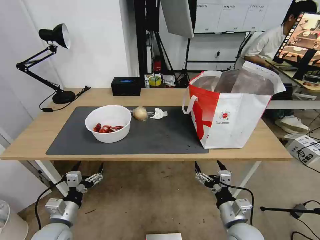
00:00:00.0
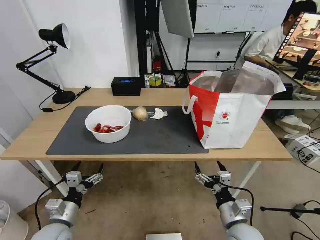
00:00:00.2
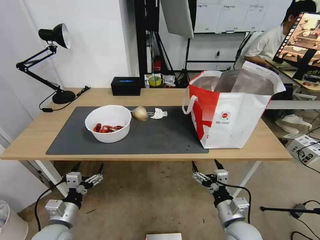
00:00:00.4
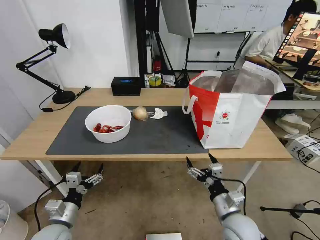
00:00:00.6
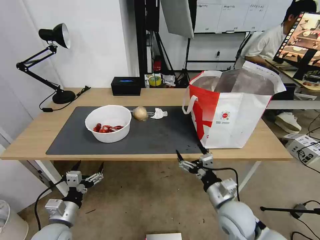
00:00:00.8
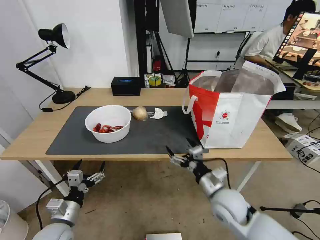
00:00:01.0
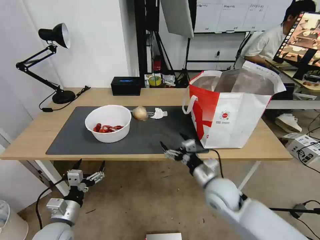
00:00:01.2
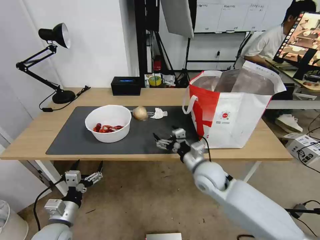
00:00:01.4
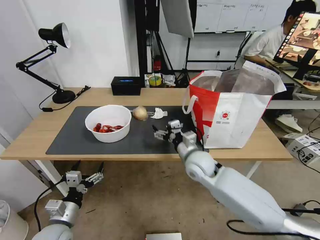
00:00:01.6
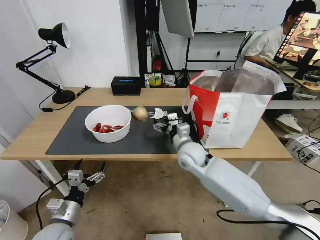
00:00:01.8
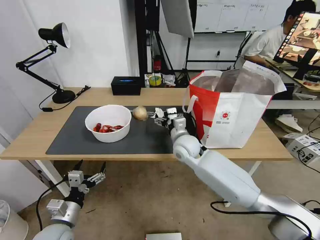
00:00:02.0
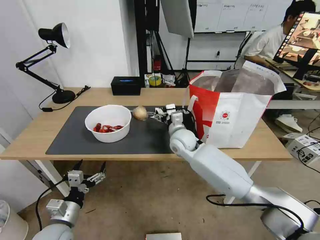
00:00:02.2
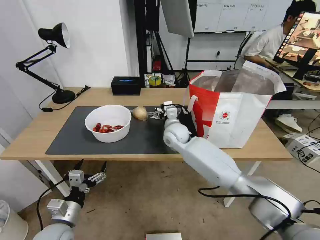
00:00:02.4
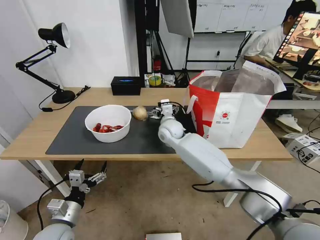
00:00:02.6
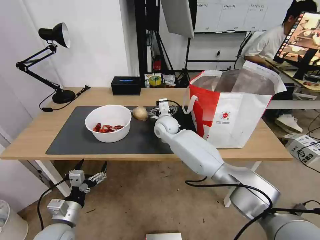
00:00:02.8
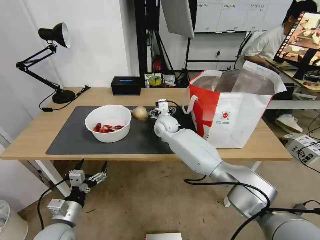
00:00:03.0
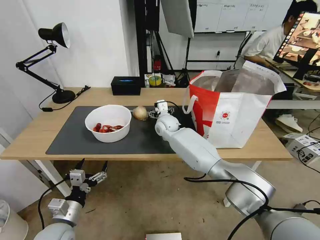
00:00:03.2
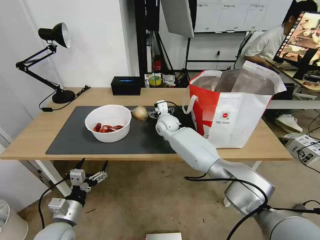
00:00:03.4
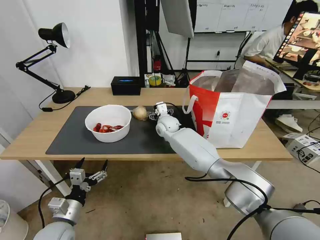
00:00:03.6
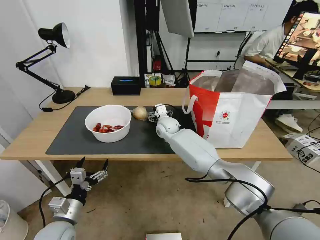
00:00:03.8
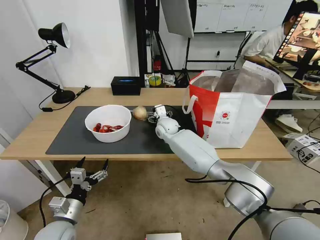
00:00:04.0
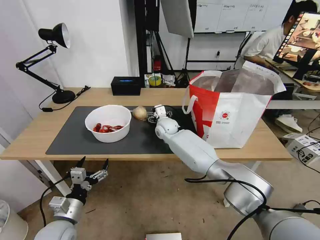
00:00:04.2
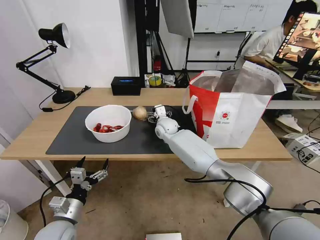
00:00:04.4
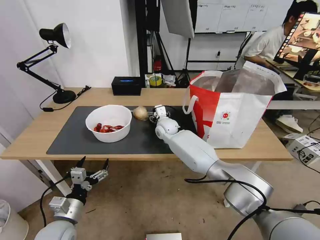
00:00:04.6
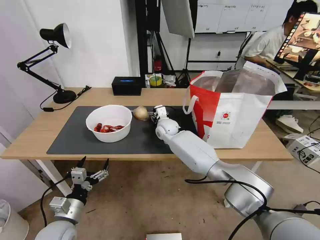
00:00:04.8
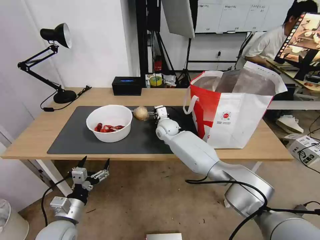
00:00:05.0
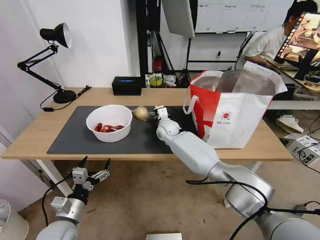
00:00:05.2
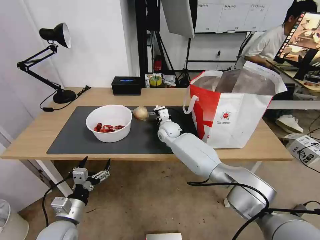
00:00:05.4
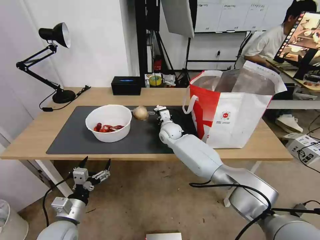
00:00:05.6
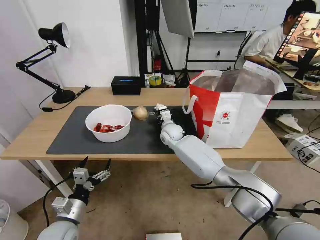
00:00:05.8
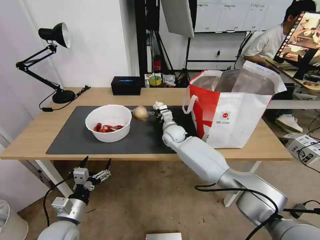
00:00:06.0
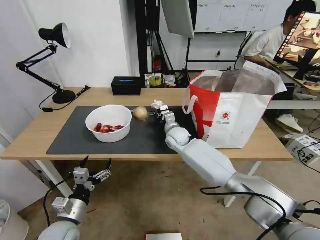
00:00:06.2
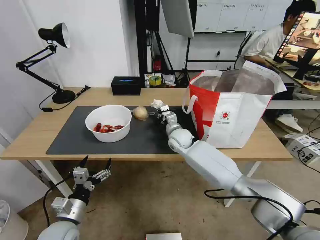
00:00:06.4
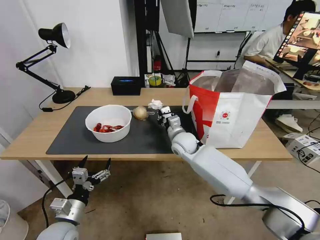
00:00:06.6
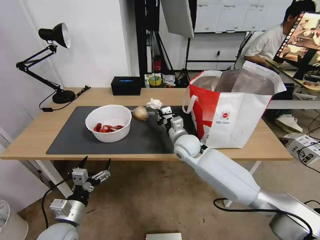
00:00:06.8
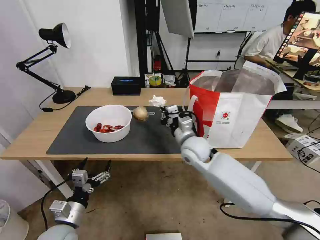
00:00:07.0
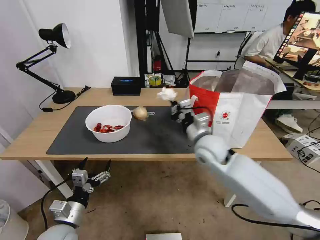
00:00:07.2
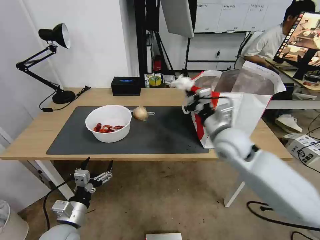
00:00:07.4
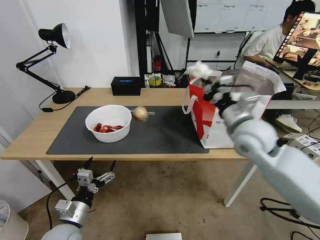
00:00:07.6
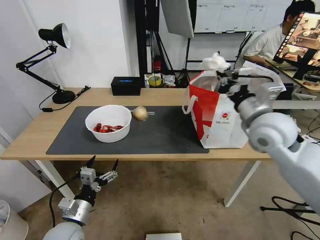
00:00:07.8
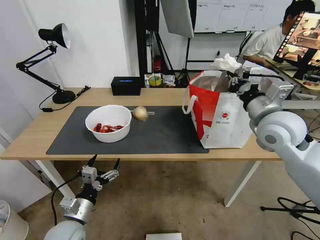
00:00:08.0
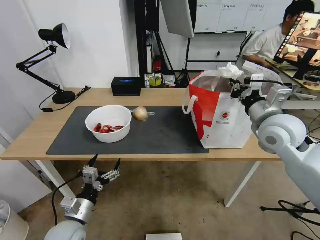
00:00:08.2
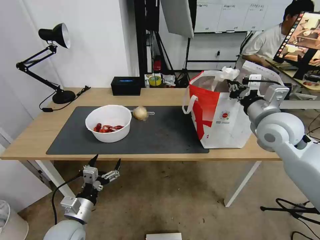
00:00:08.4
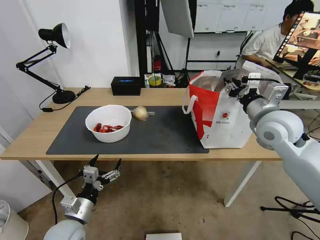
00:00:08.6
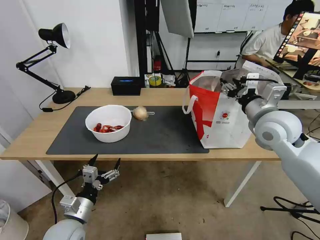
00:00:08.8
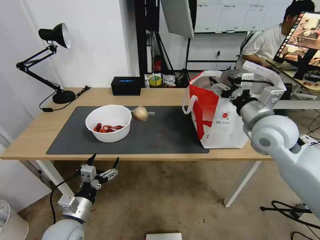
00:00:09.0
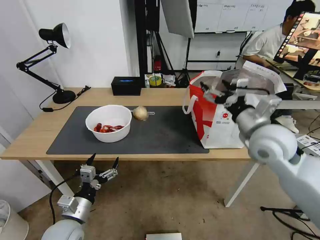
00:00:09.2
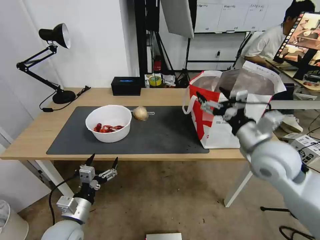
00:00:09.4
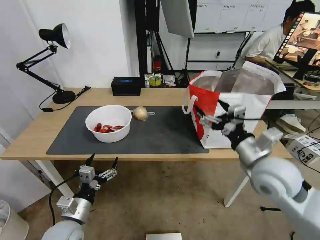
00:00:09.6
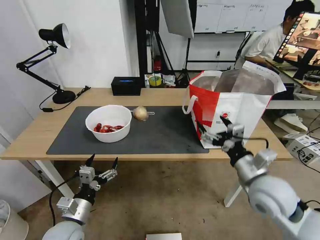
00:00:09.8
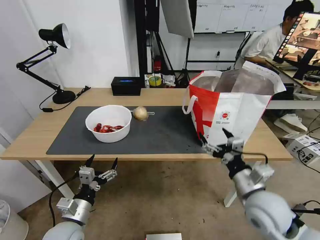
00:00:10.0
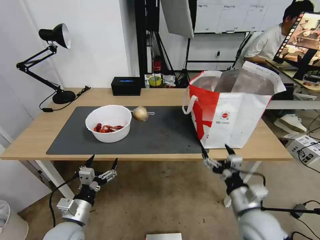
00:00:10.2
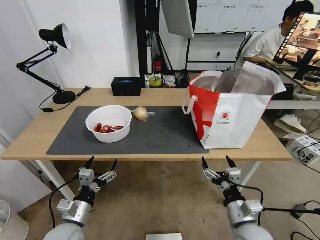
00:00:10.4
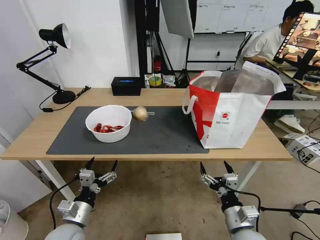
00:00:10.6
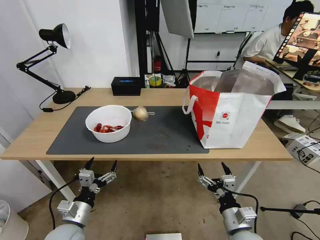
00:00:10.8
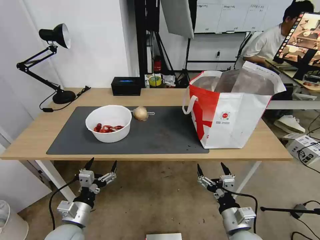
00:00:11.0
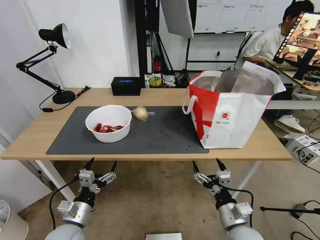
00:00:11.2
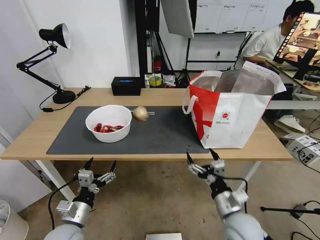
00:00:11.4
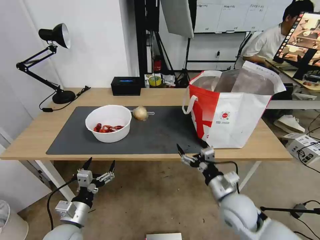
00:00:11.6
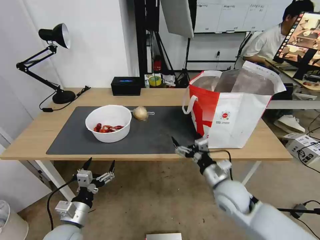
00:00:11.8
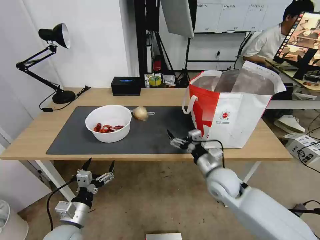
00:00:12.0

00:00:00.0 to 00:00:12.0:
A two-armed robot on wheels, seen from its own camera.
Task of the whole recording: Pick up the trash from the table and place it into the takeout bag.
00:00:00.0 to 00:00:01.6: The right gripper shifts some 20 cm forward and to the left.
00:00:01.6 to 00:00:03.0: The right gripper goes roughly 20 cm forward and to the left.
00:00:03.0 to 00:00:04.4: The grippers make only small movements.
00:00:04.4 to 00:00:06.0: The right gripper closes.
00:00:06.0 to 00:00:07.6: The right gripper is displaced upward, to the right and backward by approximately 30 cm.
00:00:07.6 to 00:00:09.0: The right gripper shifts about 5 cm to the right, and opens up.
00:00:09.0 to 00:00:10.4: The right gripper moves downward and backward, some 30 cm.
00:00:10.4 to 00:00:12.0: The right gripper goes about 15 cm forward.

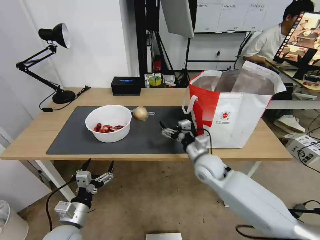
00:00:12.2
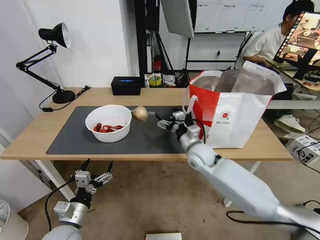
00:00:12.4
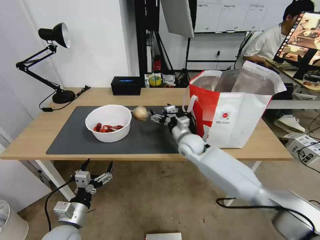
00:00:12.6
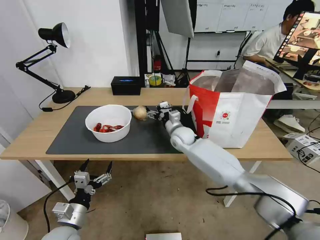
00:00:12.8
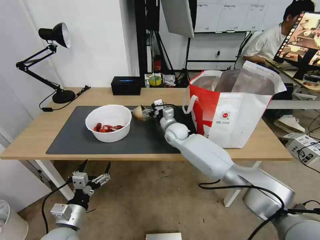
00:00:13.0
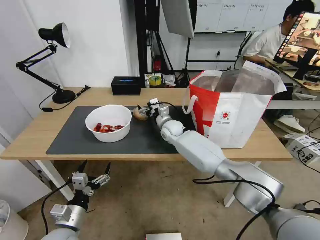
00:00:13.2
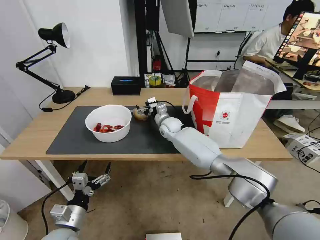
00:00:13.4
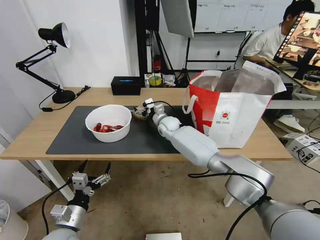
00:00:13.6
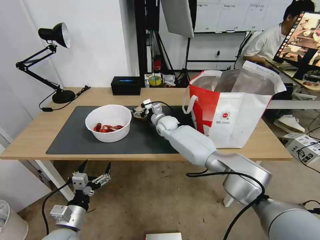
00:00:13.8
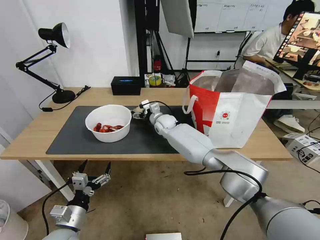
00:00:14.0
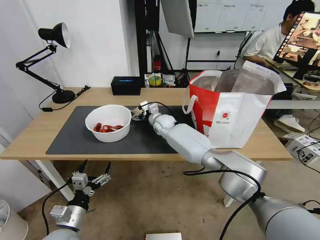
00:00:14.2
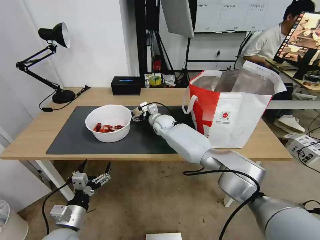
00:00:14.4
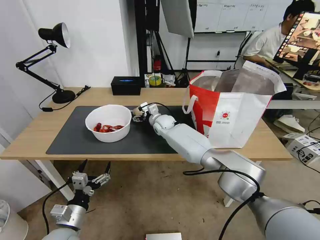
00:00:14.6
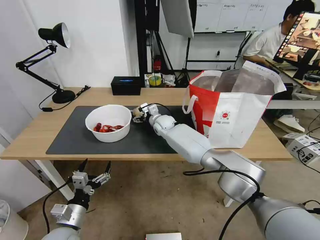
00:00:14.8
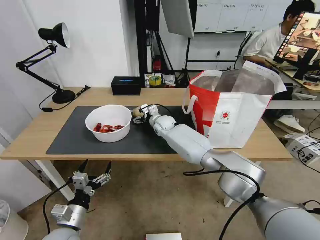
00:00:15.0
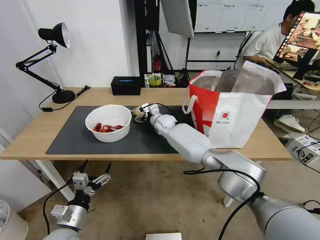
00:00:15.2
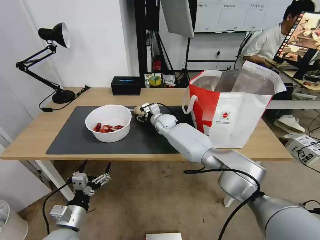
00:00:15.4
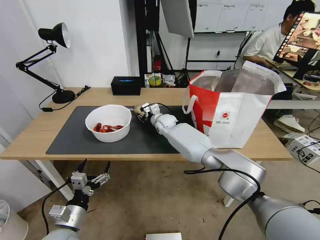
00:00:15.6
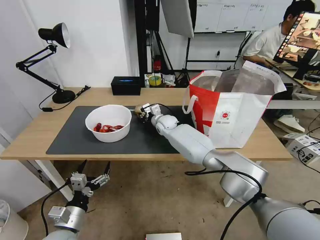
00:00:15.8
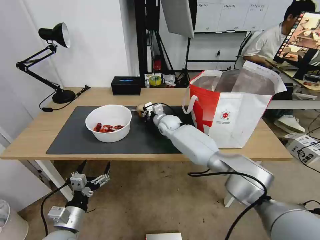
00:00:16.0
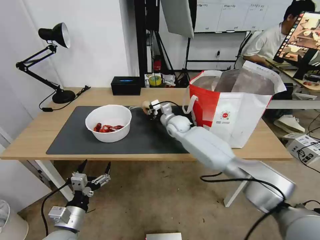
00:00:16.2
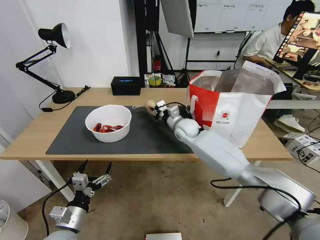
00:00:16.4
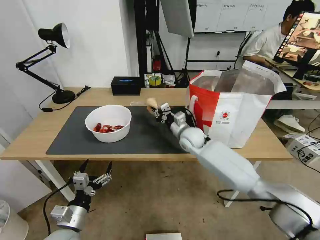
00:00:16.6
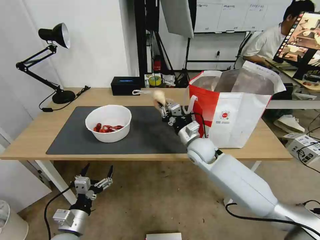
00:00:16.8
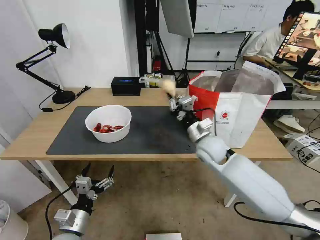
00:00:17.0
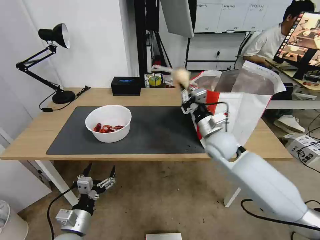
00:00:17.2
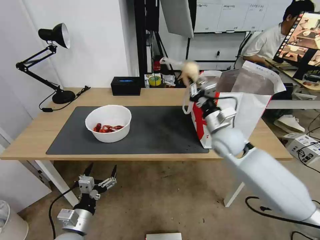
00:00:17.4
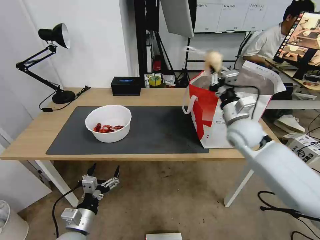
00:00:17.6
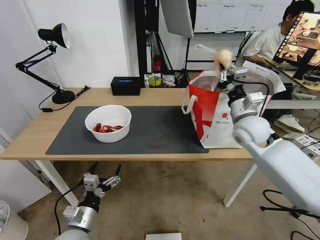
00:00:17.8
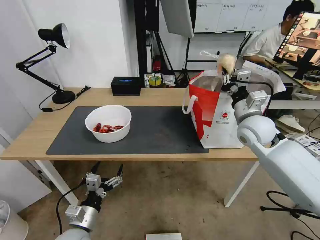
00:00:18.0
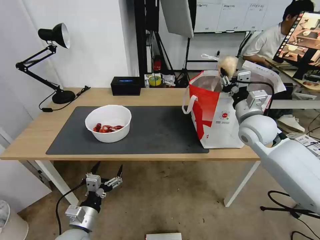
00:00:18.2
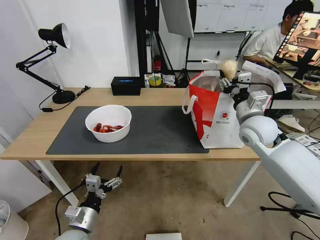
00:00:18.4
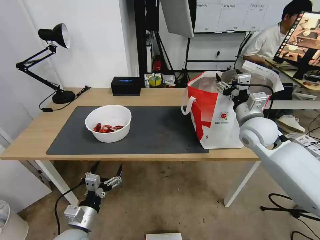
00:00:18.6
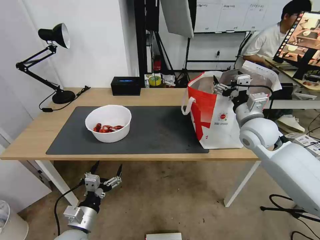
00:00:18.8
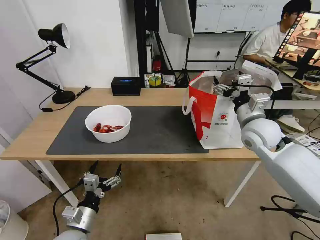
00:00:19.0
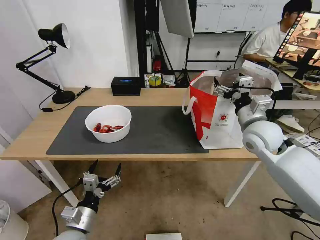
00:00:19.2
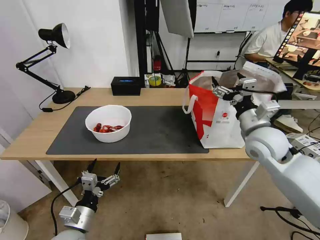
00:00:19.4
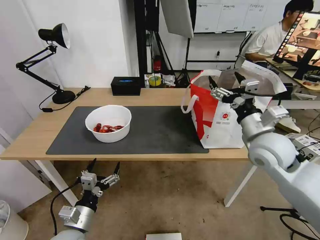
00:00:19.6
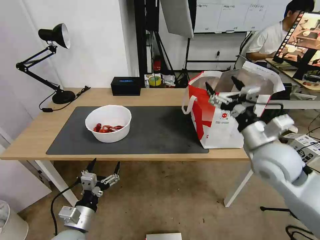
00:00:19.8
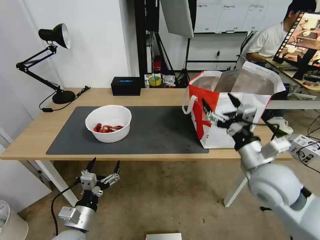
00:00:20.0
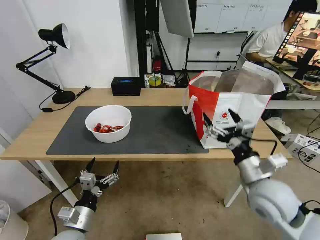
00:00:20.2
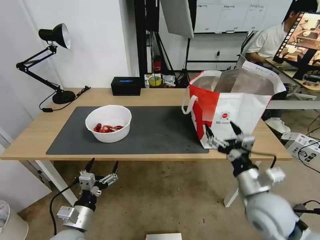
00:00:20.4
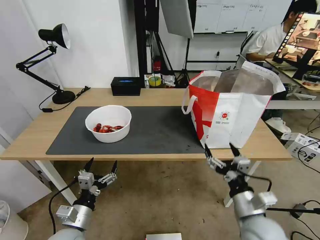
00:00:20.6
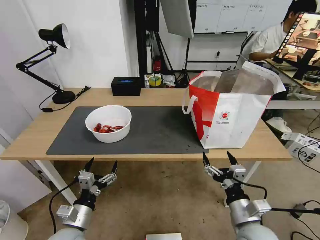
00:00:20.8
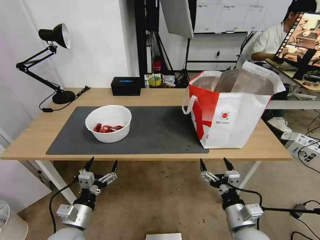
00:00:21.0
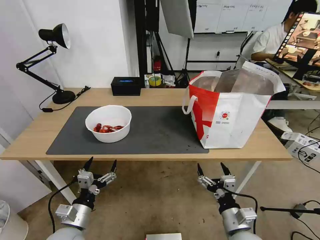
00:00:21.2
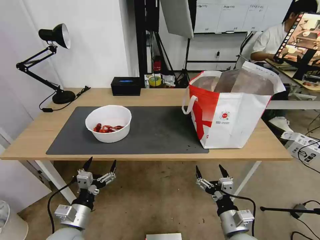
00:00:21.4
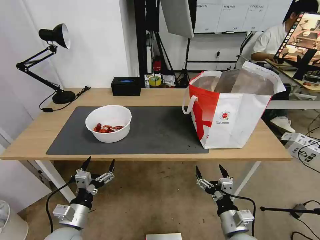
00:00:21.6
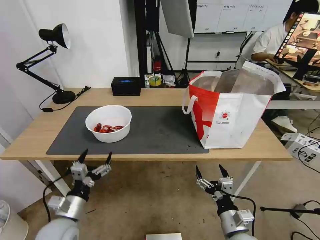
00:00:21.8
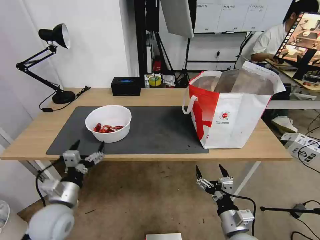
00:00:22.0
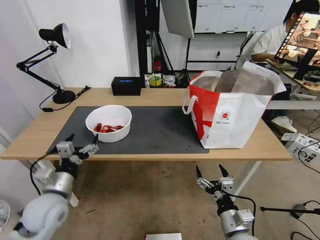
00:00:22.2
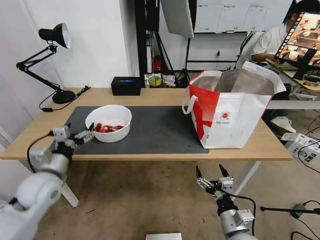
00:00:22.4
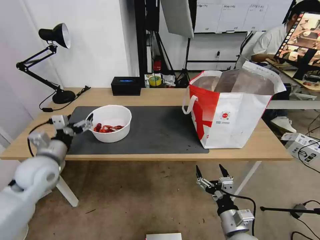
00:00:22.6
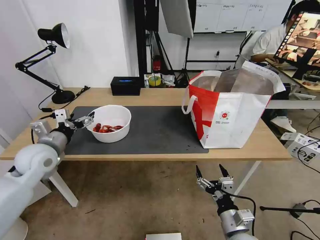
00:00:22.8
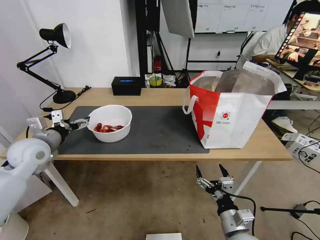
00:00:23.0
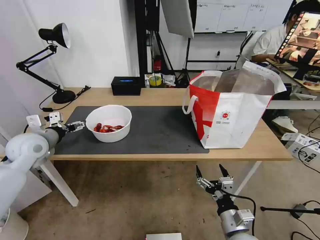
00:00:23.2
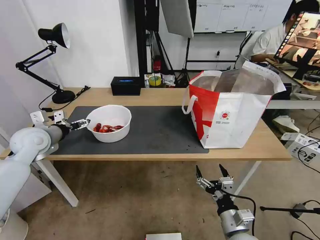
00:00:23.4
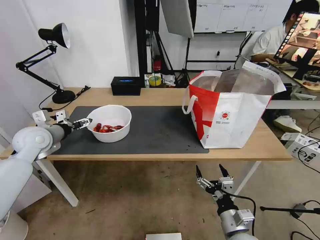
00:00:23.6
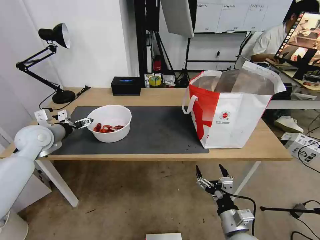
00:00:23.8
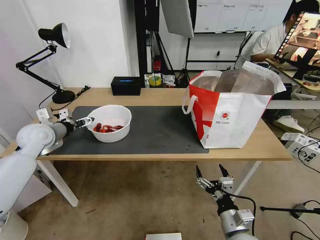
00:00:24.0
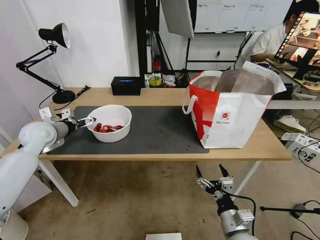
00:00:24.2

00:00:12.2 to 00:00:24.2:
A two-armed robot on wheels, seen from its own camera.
Task of the whole recording: Pick up the trash from the table and place it into the takeout bag.
00:00:12.2 to 00:00:13.8: The right gripper is displaced forward and to the left by about 25 cm.
00:00:13.8 to 00:00:15.2: The grippers stay close to where they were, moving slightly.
00:00:15.2 to 00:00:16.6: The right gripper heads backward and to the right, covering about 15 cm, and closes its fingers.
00:00:16.6 to 00:00:18.2: The right gripper moves to the right, upward and backward, approximately 20 cm.
00:00:18.2 to 00:00:19.8: The right gripper goes roughly 15 cm backward, and opens up.
00:00:19.8 to 00:00:21.2: The right gripper shifts roughly 25 cm downward and backward.
00:00:21.2 to 00:00:22.6: The left gripper heads forward, upward and to the left, covering about 20 cm.
00:00:22.6 to 00:00:24.2: The left gripper heads forward, covering some 10 cm.
